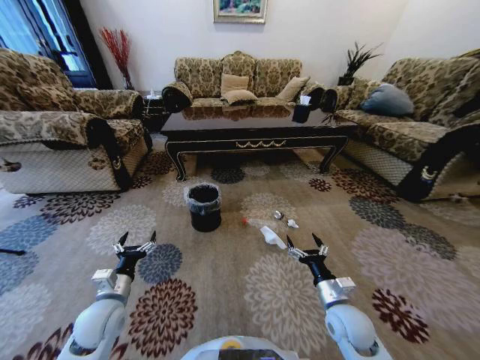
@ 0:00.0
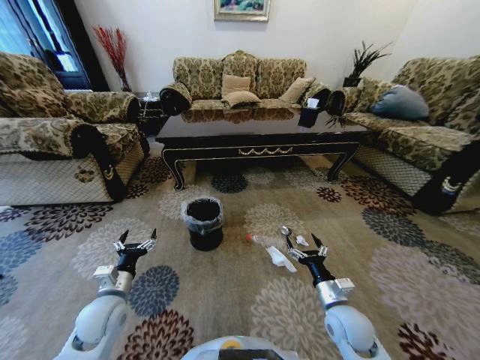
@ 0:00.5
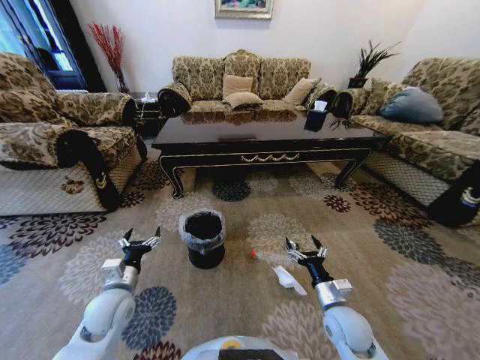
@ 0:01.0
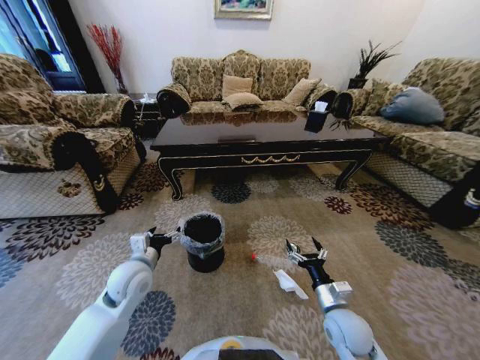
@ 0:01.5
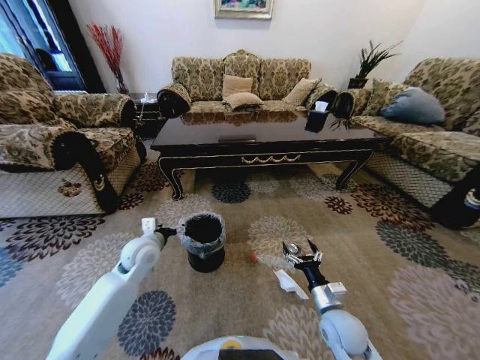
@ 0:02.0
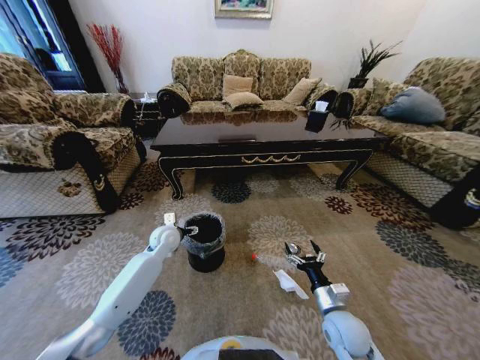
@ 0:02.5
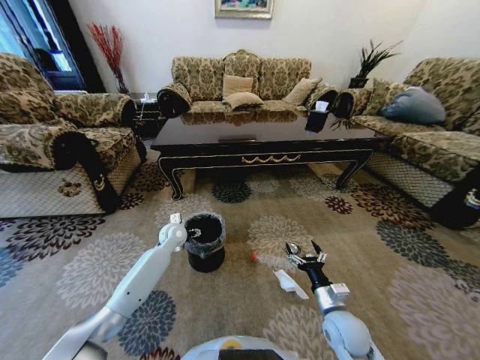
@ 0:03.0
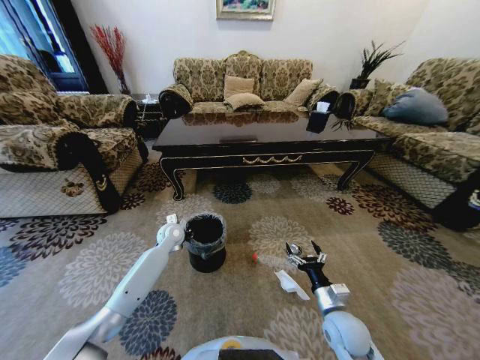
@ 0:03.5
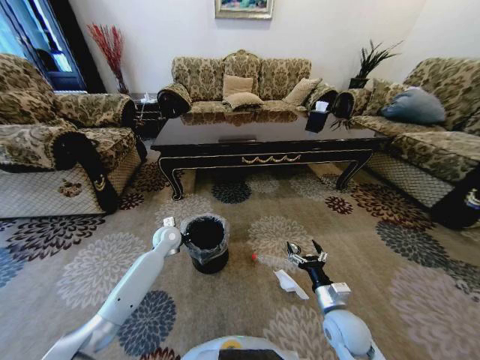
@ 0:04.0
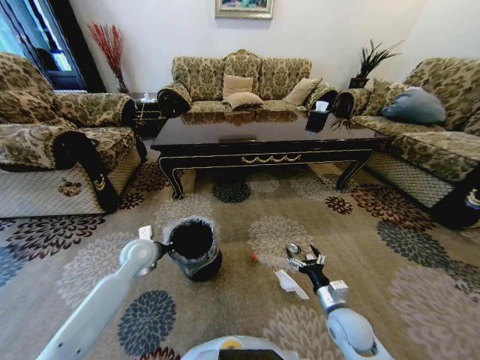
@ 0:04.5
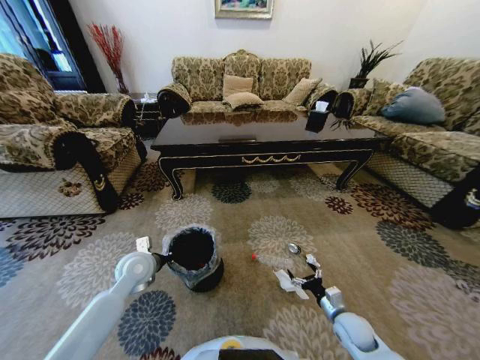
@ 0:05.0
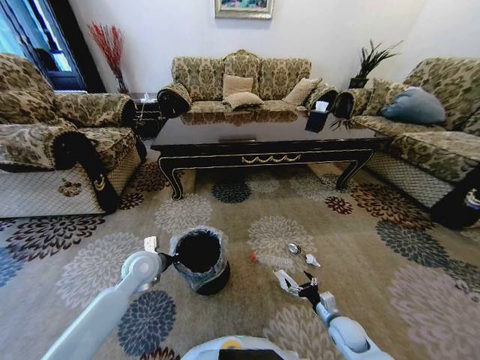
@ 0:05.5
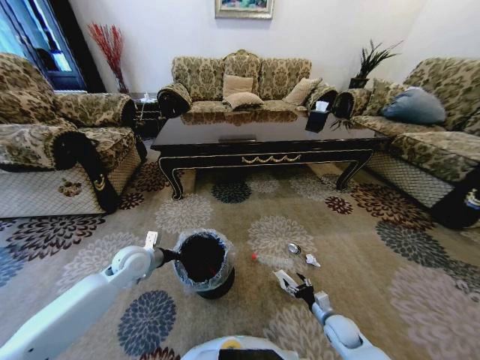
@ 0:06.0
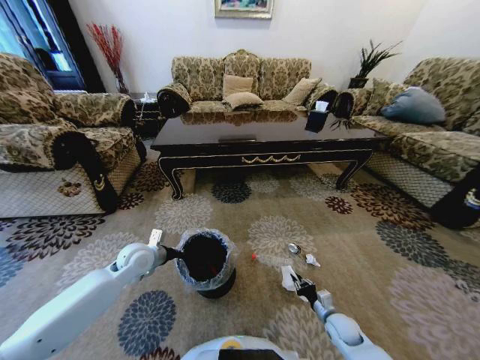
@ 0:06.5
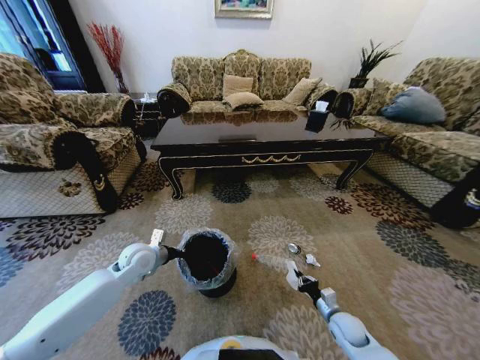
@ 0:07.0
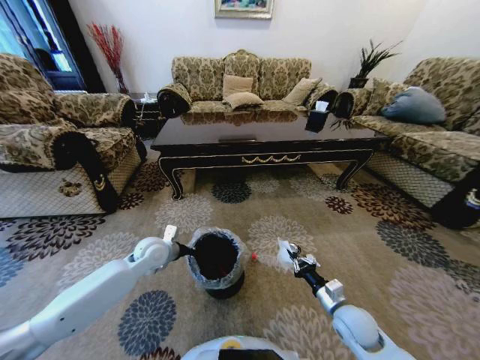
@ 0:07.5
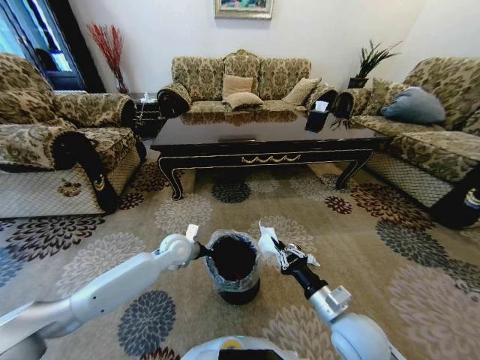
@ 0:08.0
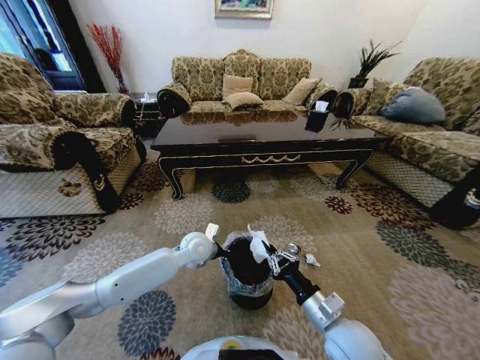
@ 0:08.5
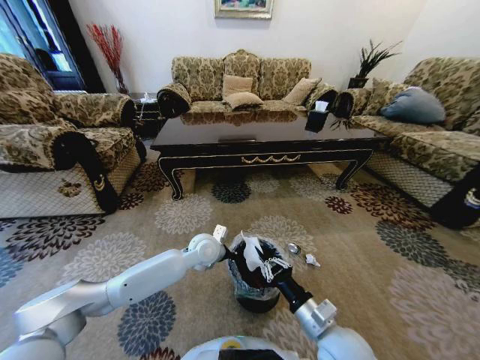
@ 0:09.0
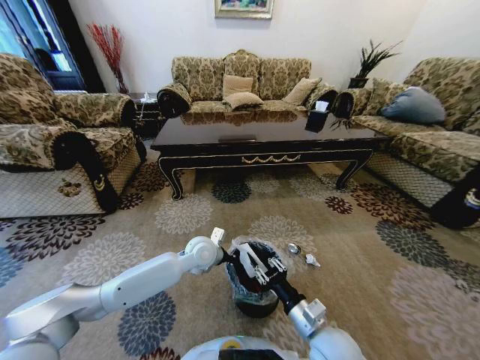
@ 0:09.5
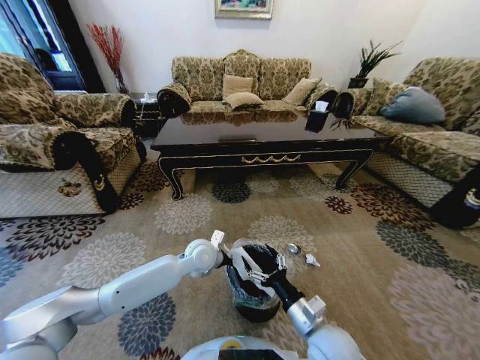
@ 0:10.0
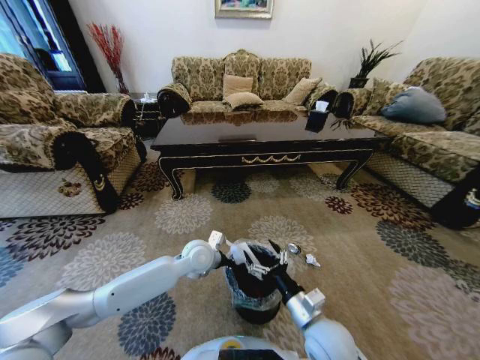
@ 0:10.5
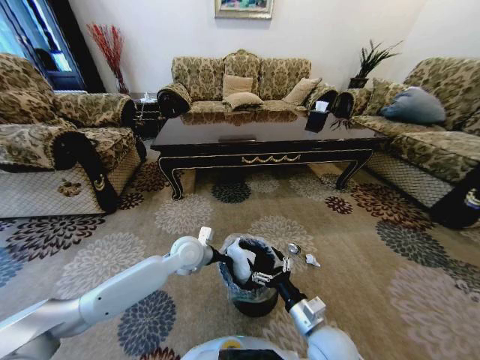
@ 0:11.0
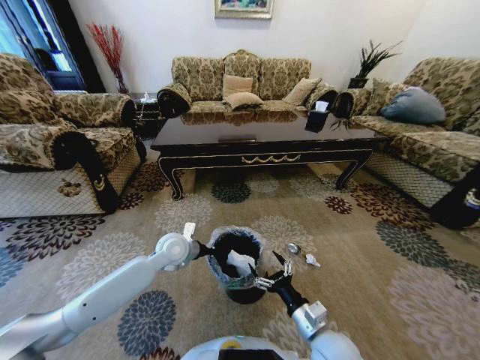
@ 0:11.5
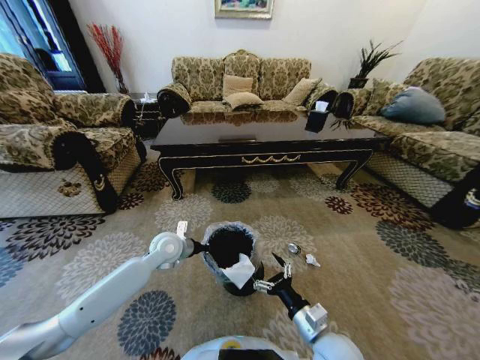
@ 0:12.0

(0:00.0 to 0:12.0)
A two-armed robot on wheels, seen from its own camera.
Task of the whole recording: Move to the front of the table and pick up the trash from the floor, then place it into the trash bin.
0:00.0 - 0:02.0: The left gripper is displaced forward, upward and to the right by about 15 cm.
0:02.0 - 0:04.0: The left gripper shifts roughly 10 cm forward and downward, and closes its fingers.
0:04.0 - 0:06.0: The left gripper travels backward and to the left by approximately 10 cm; the right gripper travels downward and to the right by approximately 15 cm.
0:06.0 - 0:08.0: The right gripper is displaced upward and to the left by some 25 cm, and closes its fingers. Meanwhile the left gripper heads to the right, covering approximately 10 cm.
0:08.0 - 0:10.0: The right gripper goes approximately 5 cm to the left, and opens up. Meanwhile the left gripper travels to the right by some 10 cm.
0:10.0 - 0:12.0: The left gripper shifts approximately 10 cm to the left.

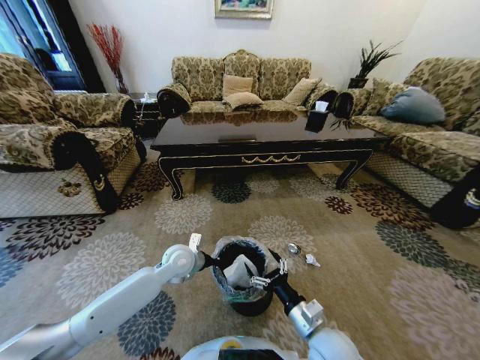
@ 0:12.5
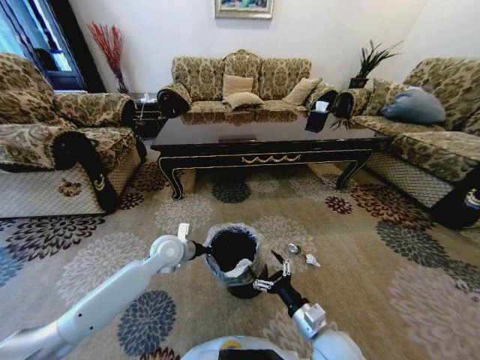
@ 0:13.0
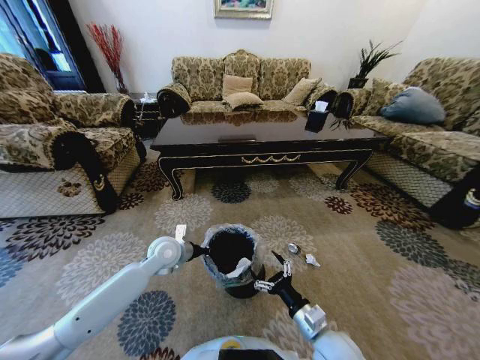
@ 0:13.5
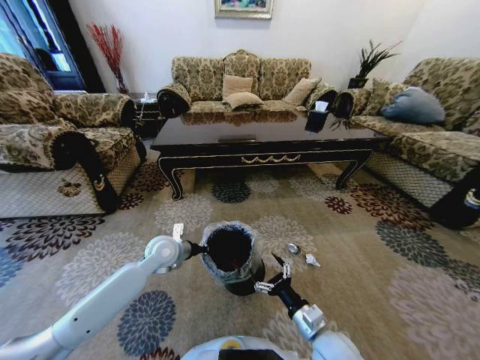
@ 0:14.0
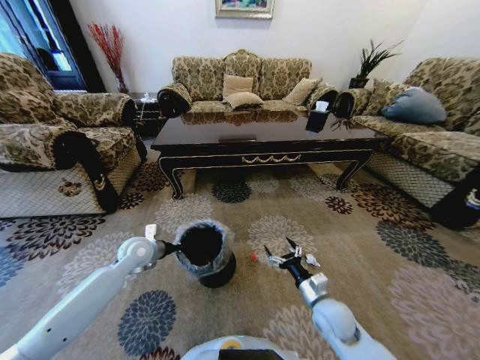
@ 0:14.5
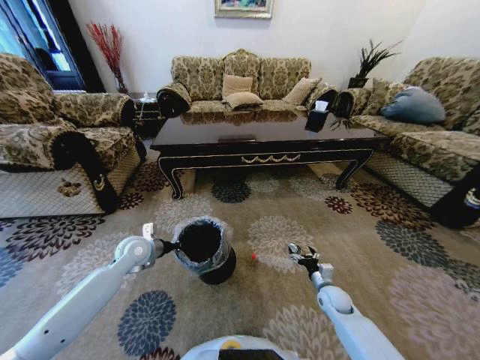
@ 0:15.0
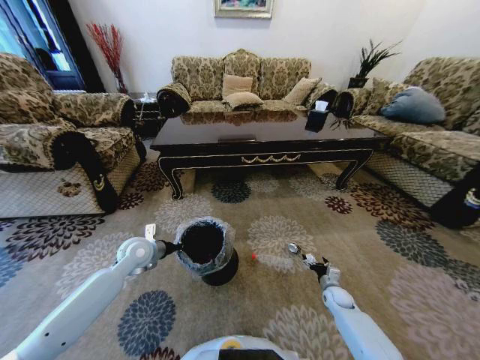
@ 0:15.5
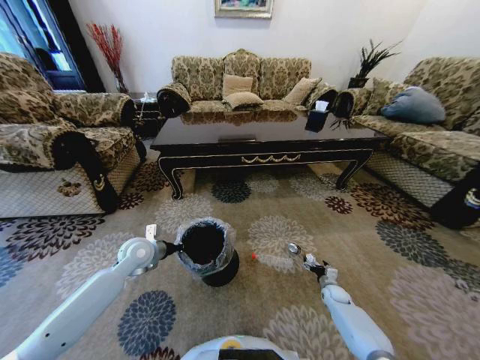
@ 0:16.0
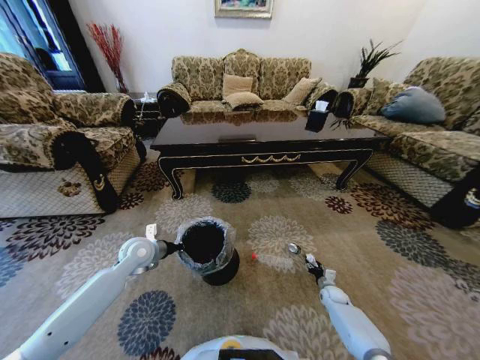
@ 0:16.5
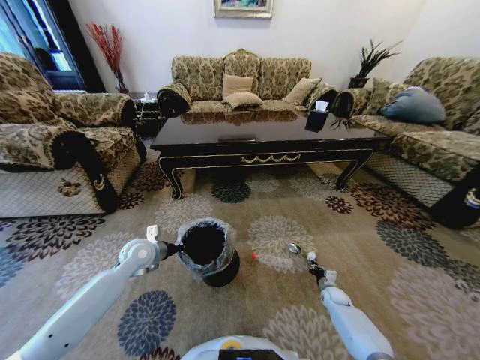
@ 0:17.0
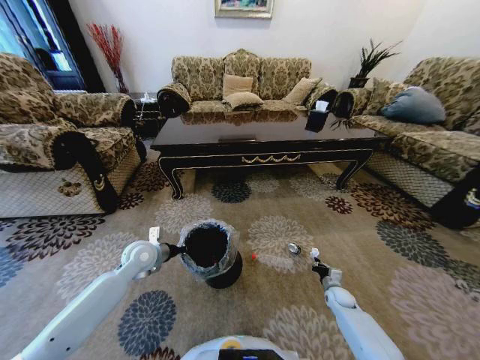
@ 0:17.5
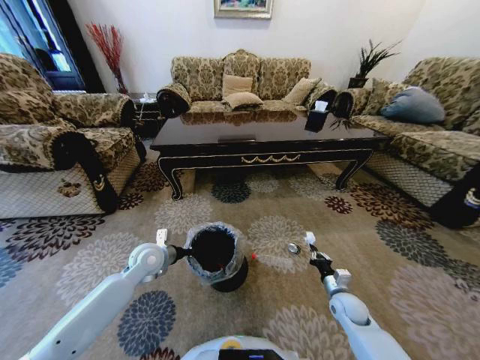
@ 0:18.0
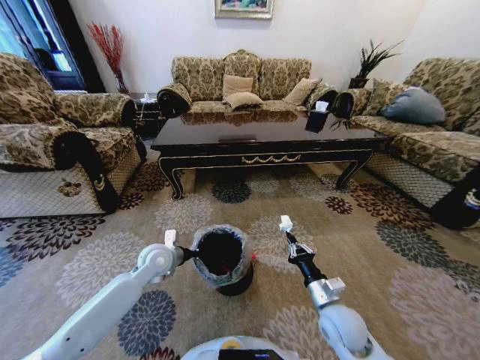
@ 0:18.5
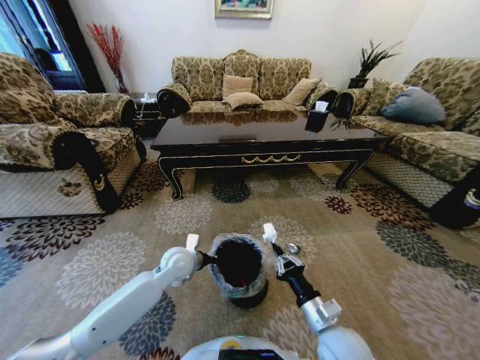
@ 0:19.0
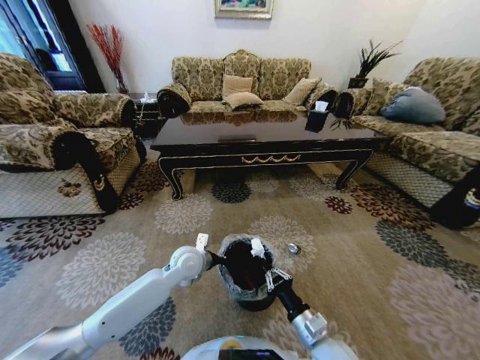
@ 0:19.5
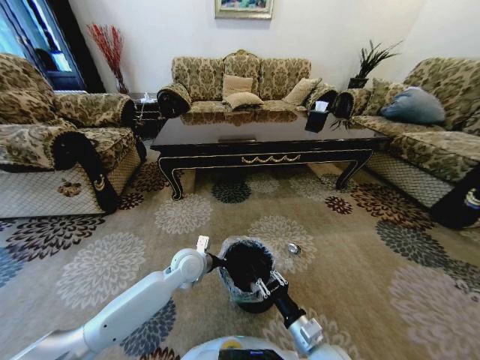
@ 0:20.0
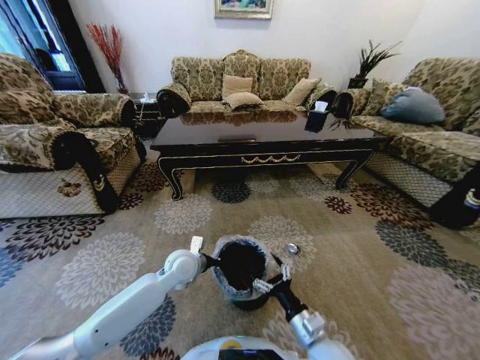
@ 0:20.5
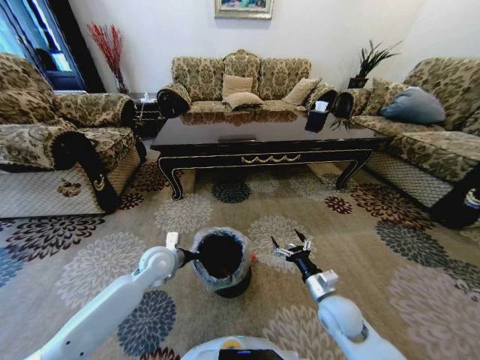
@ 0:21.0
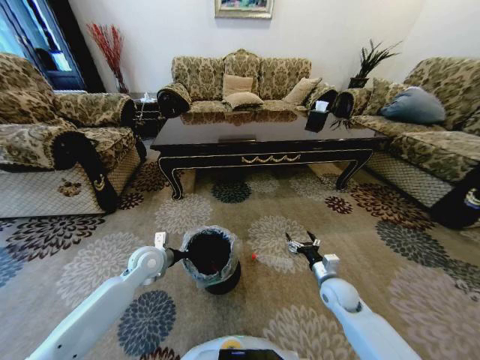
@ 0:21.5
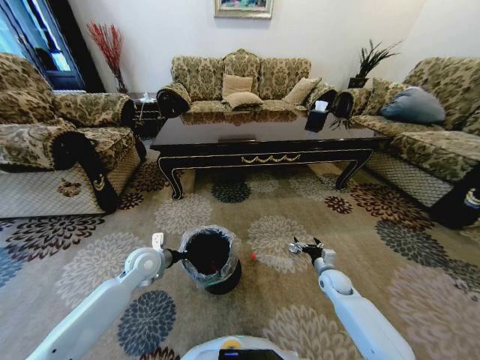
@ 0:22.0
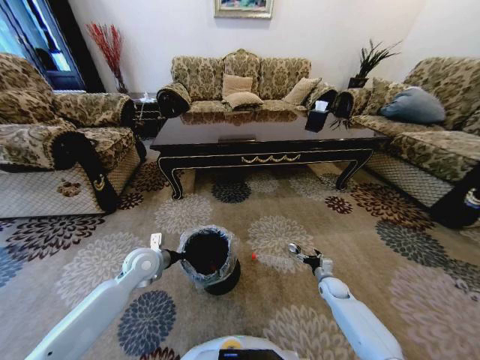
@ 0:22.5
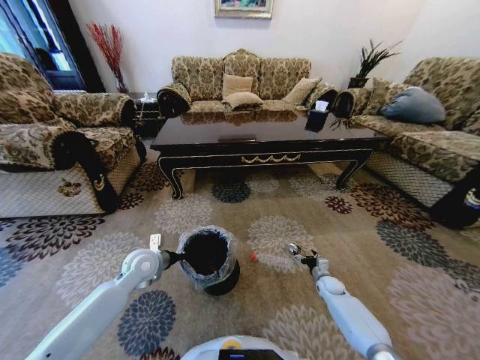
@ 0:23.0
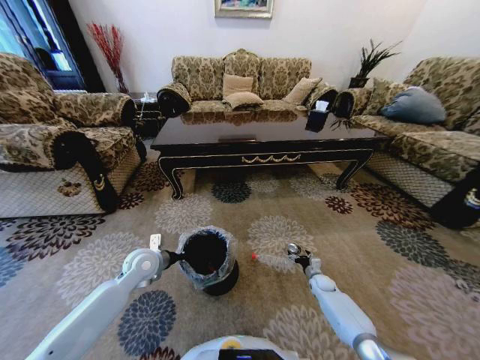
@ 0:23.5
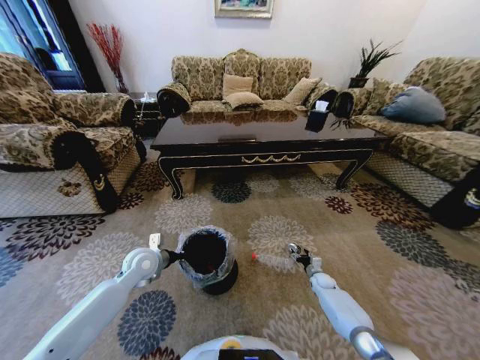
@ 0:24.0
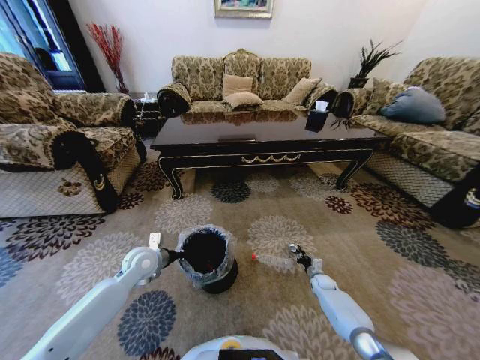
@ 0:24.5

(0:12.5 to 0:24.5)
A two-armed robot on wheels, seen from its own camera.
Task of the whole recording: Move to the front of the table and pick up the trash from the floor, then place it into the trash bin.
0:12.5 - 0:14.5: The right gripper heads forward and to the right, covering about 10 cm. The left gripper goes approximately 15 cm to the left.
0:14.5 - 0:16.5: The right gripper heads downward, to the right and forward, covering some 30 cm, and closes up.
0:16.5 - 0:18.5: The right gripper shifts roughly 30 cm upward, to the left and backward, and closes its fingers. Meanwhile the left gripper moves to the right, roughly 5 cm.
0:18.5 - 0:20.5: The right gripper heads backward and to the left, covering some 10 cm, and opens up. The left gripper moves to the right, approximately 10 cm.
0:20.5 - 0:22.5: The right gripper is displaced forward, to the right and downward by about 35 cm. Meanwhile the left gripper travels to the left by about 10 cm.
0:22.5 - 0:24.5: The right gripper moves some 5 cm, and closes up.

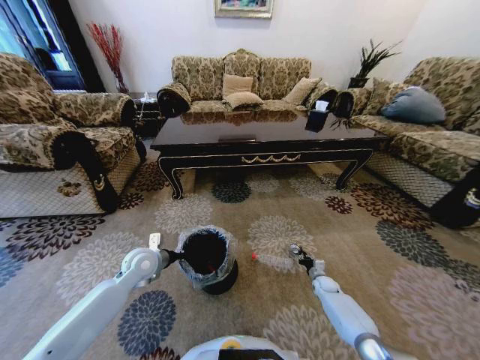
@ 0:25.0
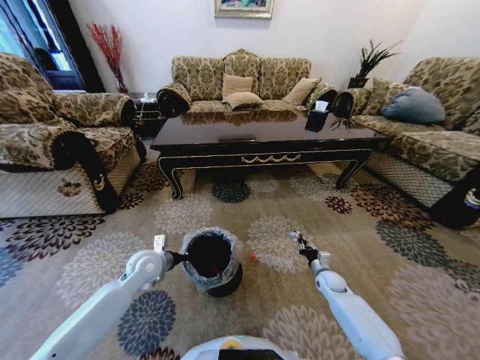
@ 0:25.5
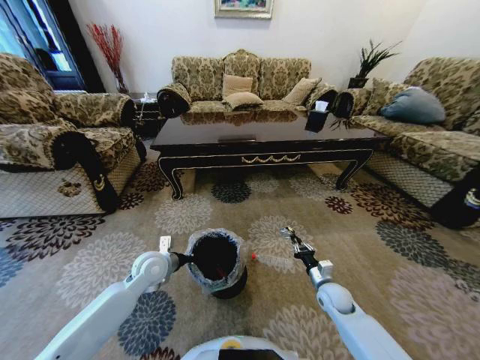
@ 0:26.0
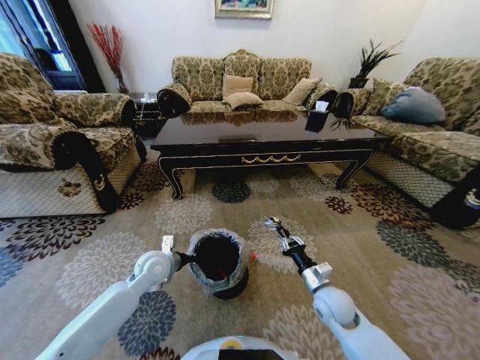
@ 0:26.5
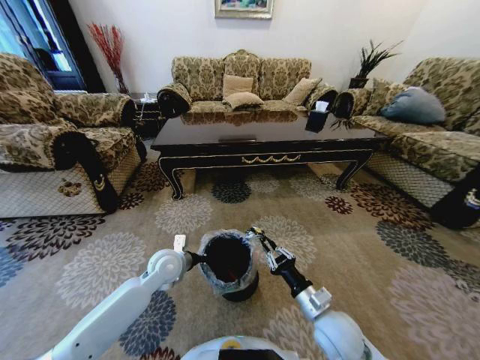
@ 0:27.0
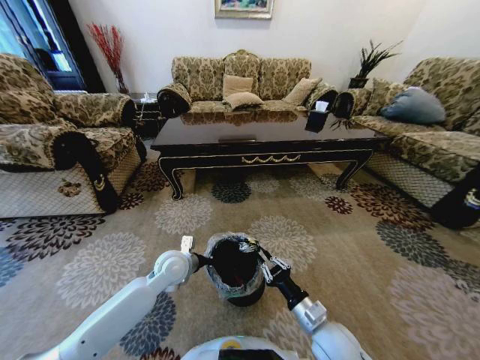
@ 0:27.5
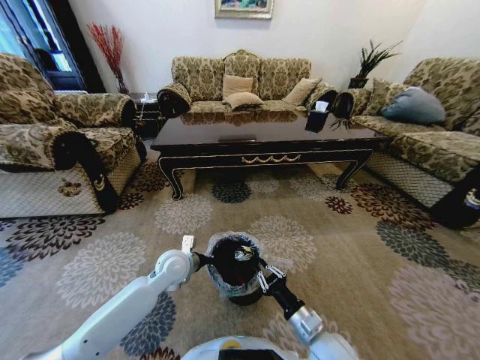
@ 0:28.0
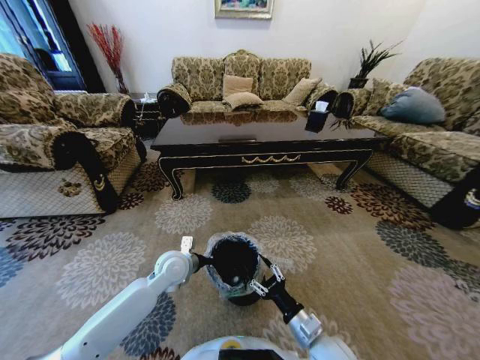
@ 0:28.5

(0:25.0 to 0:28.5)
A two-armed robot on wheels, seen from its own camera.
Task of the whole recording: Move to the front of the table and pick up the trash from the floor, then place it into the trash bin.
0:25.0 - 0:27.0: The right gripper shifts roughly 35 cm upward, backward and to the left. The left gripper travels to the right by some 10 cm.
0:27.0 - 0:28.5: The right gripper ends up about 5 cm from where it was, and opens up.
